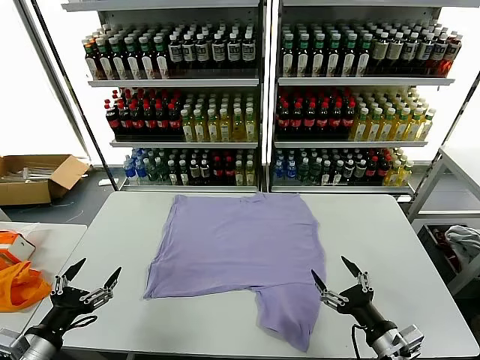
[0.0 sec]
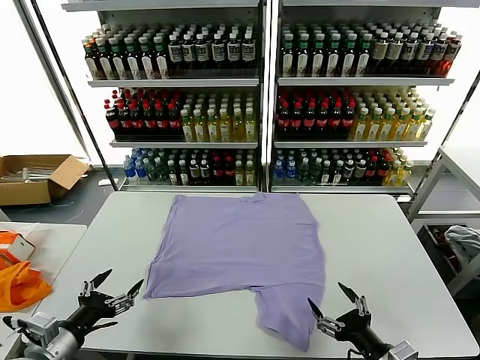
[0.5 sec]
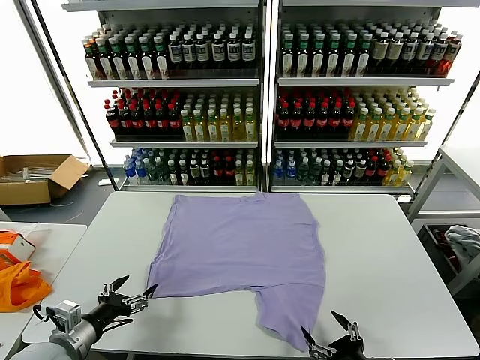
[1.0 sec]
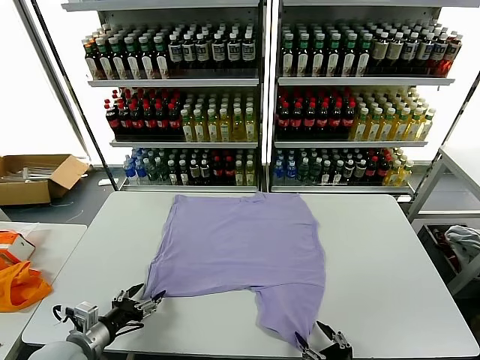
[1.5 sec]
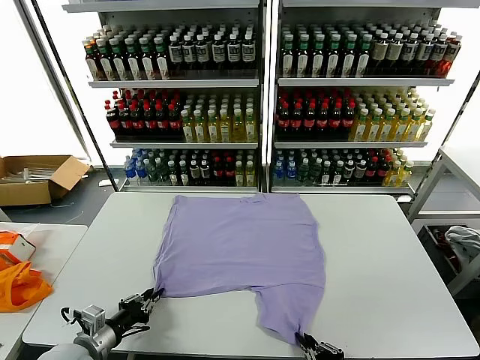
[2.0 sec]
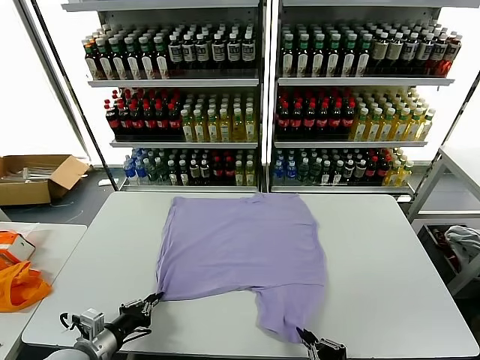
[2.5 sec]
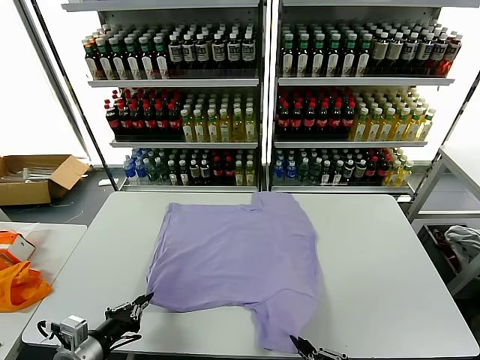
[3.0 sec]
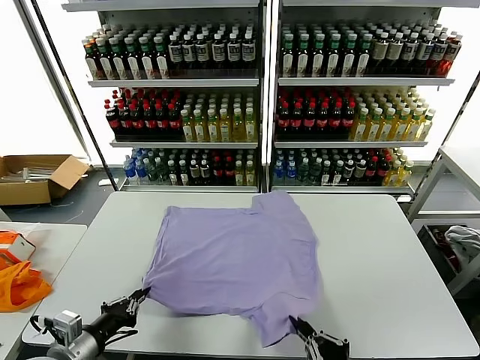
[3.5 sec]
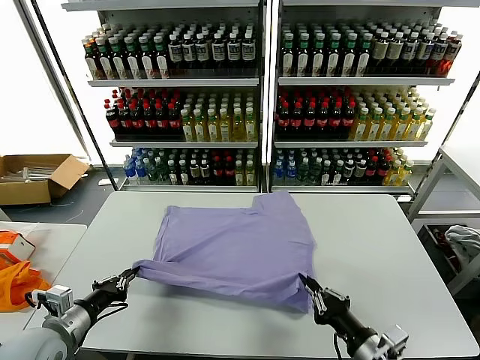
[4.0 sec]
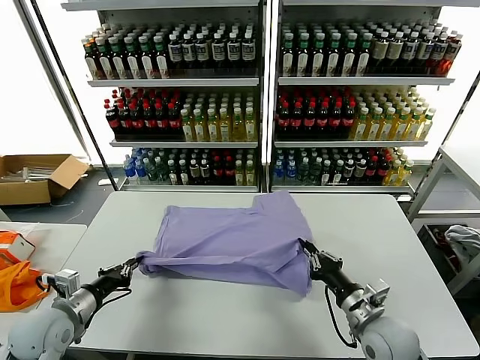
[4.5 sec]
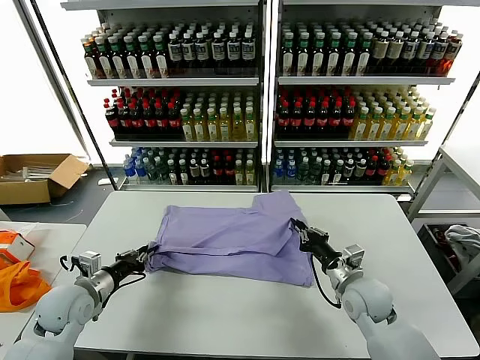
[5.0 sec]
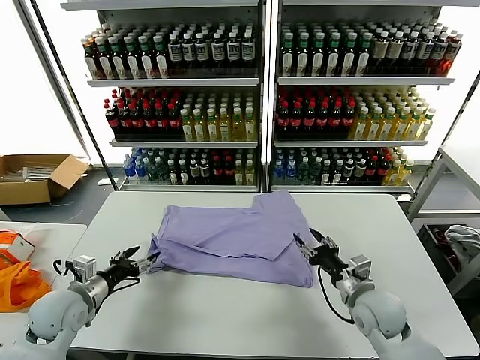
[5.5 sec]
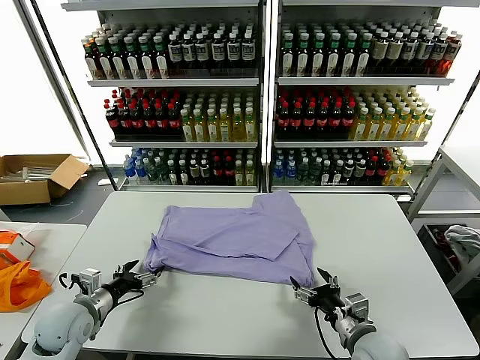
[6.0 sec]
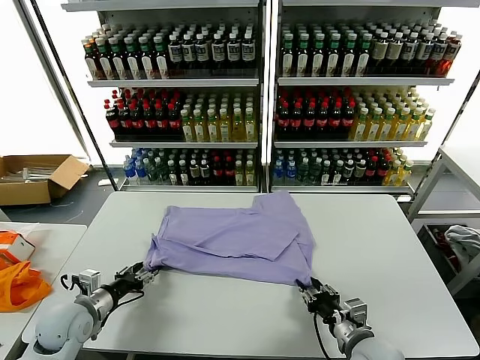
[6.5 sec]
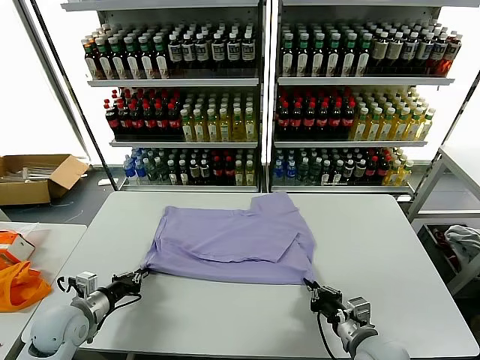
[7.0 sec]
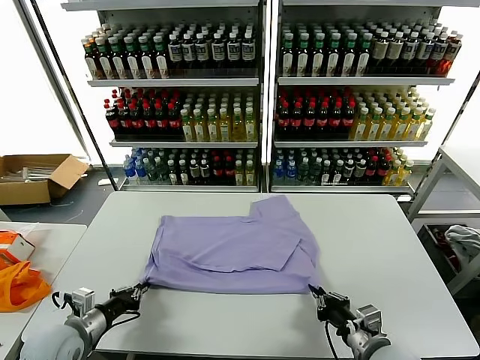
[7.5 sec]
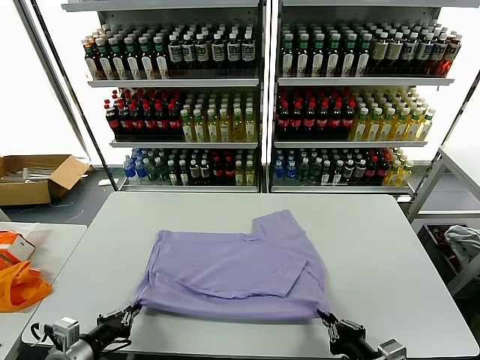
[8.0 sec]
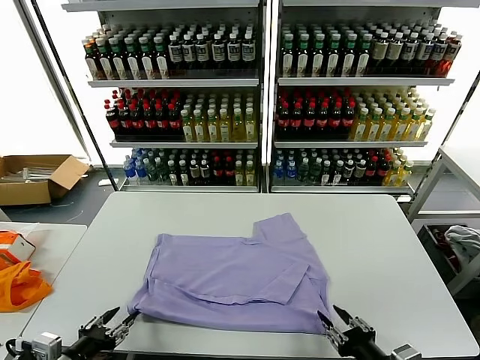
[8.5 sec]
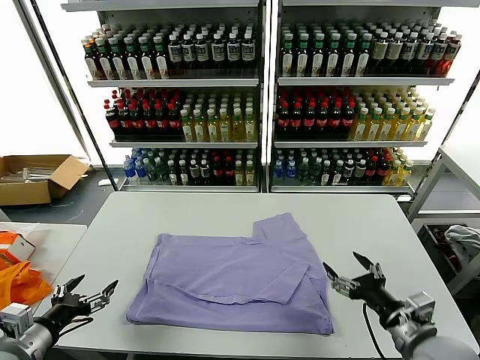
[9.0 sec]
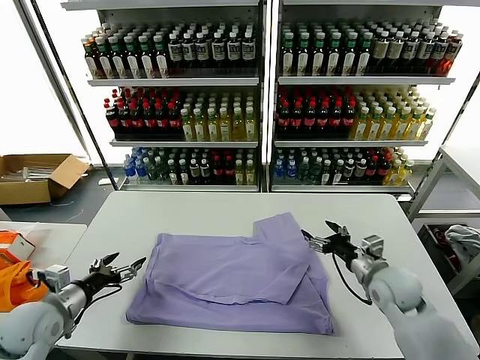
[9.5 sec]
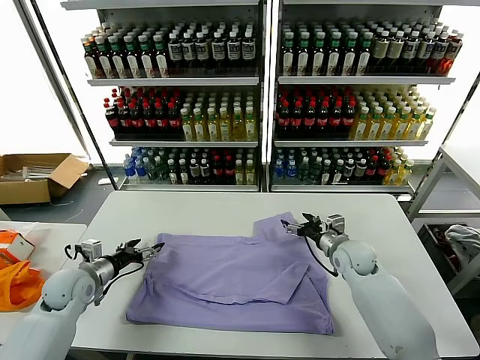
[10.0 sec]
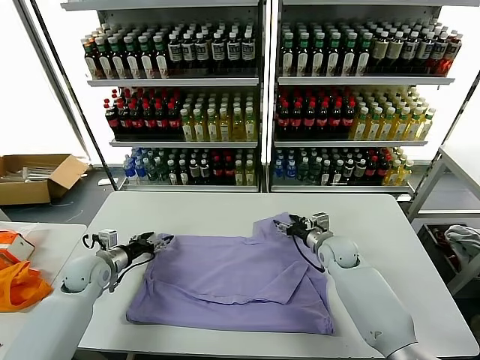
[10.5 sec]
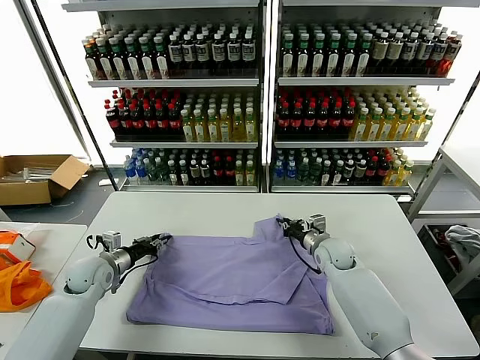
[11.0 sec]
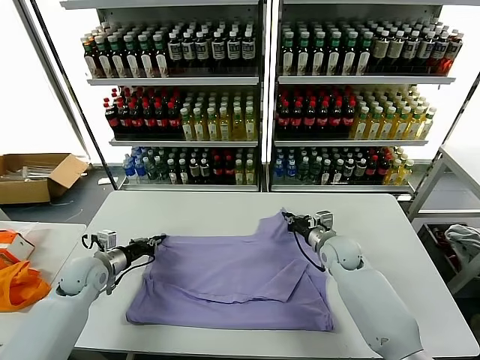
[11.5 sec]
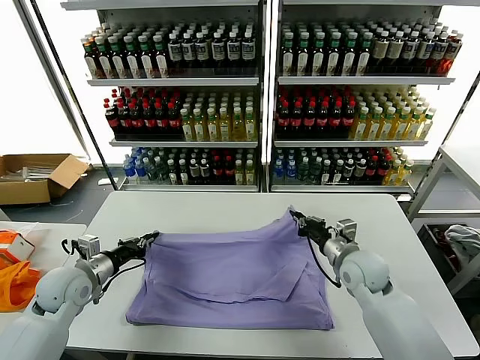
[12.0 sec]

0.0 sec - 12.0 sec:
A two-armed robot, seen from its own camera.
Task of the whole recording: fold and organize the clothes.
Step, 0.0 sec - 2.0 sec: use both grippers simultaneously to clamp the lower edge of the clothing fabric.
Step, 2.5 sec - 5.0 sec: use both grippers to drag the lower edge of the fabric forward and fold it over the upper edge.
Step, 5.5 sec - 8.0 sec: Drag the clothes downward with both gripper.
Step, 8.5 sec - 11.0 sec: use both grippers simultaneously to clamp the upper edge of the clothing fabric.
2.0 sec - 4.0 sec: The right gripper shifts approximately 10 cm forward. Meanwhile the left gripper moves upward, about 5 cm.
4.0 sec - 6.0 sec: The left gripper moves forward, some 5 cm, and opens up; the right gripper travels forward and back again, about 15 cm each way, and opens its fingers.
6.0 sec - 8.0 sec: The grippers both shift backward by approximately 10 cm. The right gripper closes, while the left gripper closes.
8.0 sec - 10.0 sec: The right gripper is displaced forward by approximately 35 cm, and opens its fingers, while the left gripper heads forward, covering roughly 20 cm, and opens its fingers.
10.0 sec - 12.0 sec: The right gripper moves backward and upward, some 10 cm, and closes. The left gripper moves about 5 cm, and closes up.

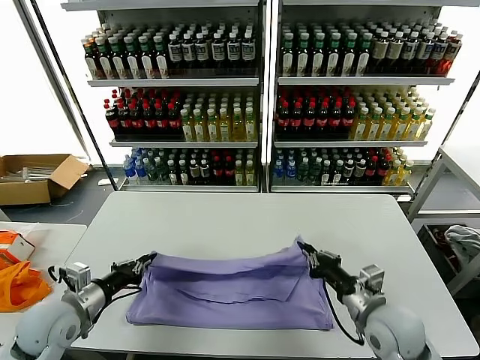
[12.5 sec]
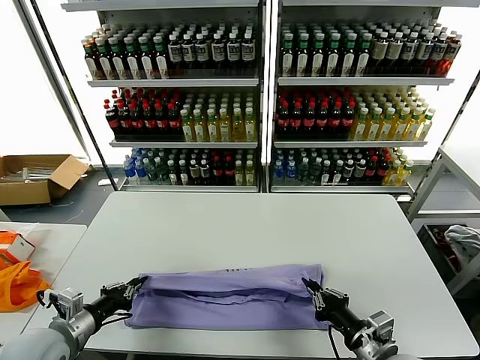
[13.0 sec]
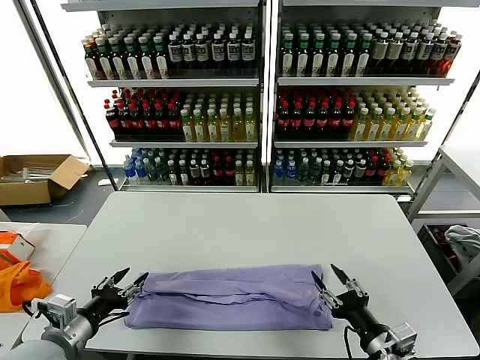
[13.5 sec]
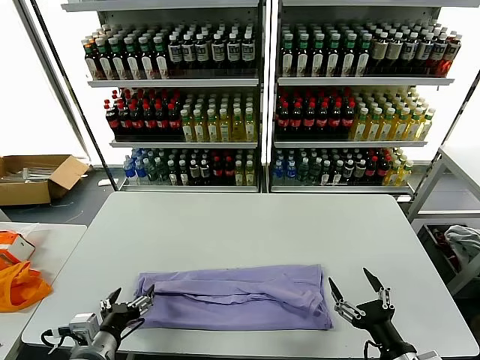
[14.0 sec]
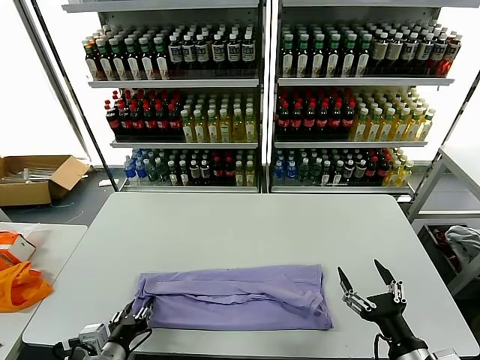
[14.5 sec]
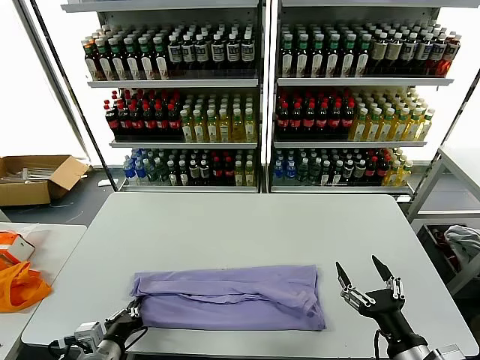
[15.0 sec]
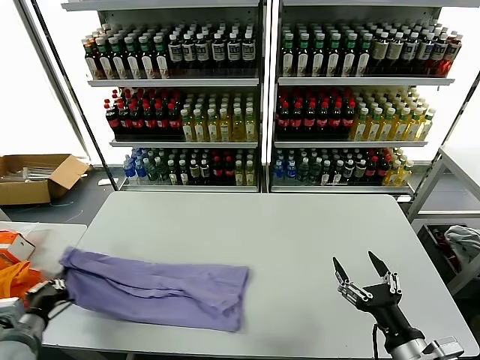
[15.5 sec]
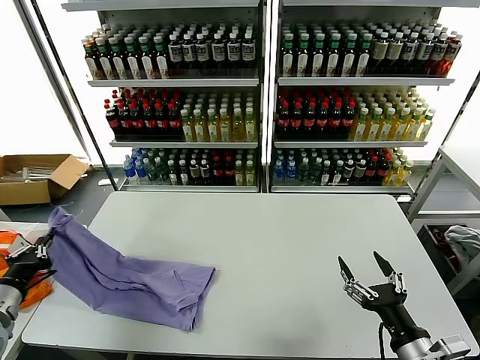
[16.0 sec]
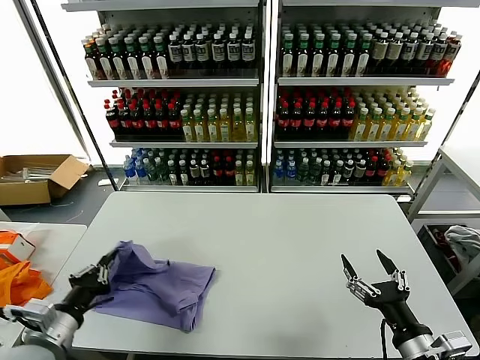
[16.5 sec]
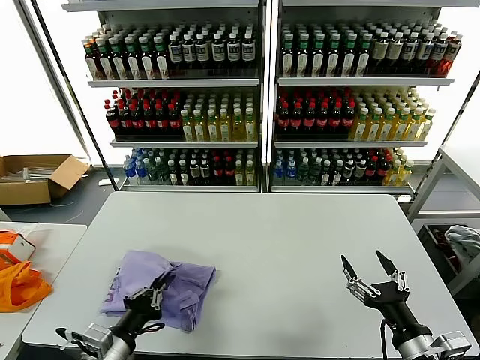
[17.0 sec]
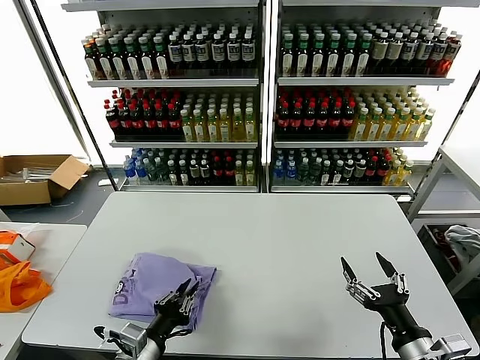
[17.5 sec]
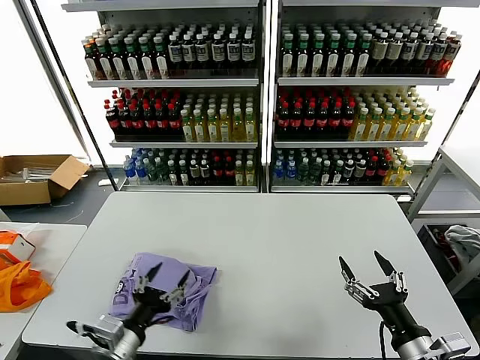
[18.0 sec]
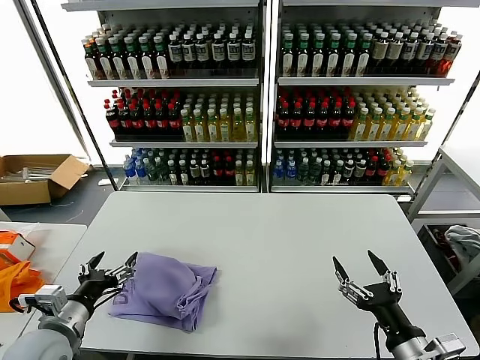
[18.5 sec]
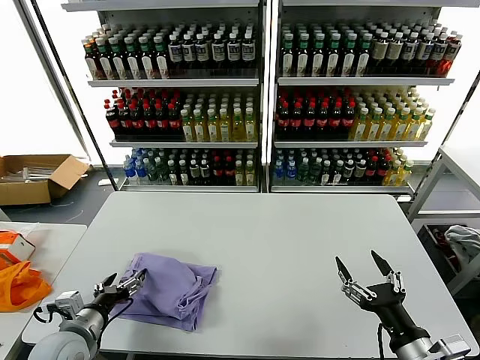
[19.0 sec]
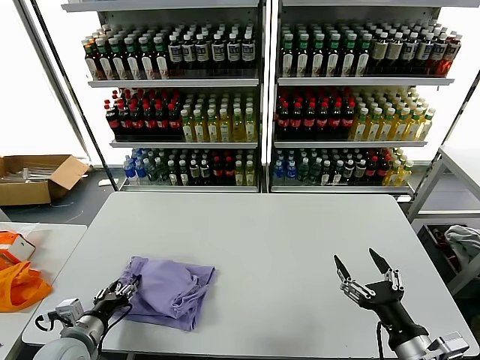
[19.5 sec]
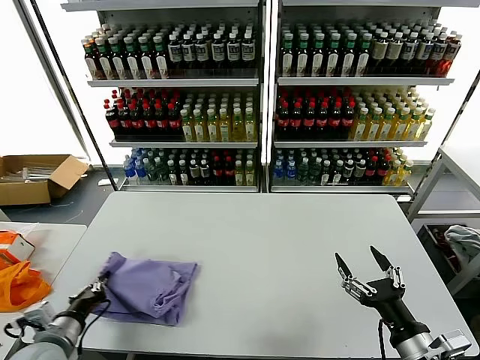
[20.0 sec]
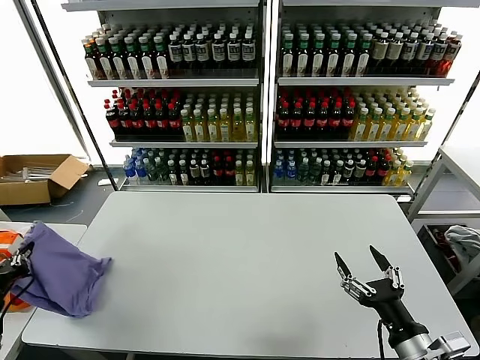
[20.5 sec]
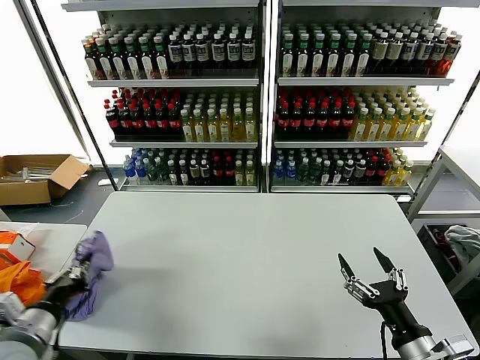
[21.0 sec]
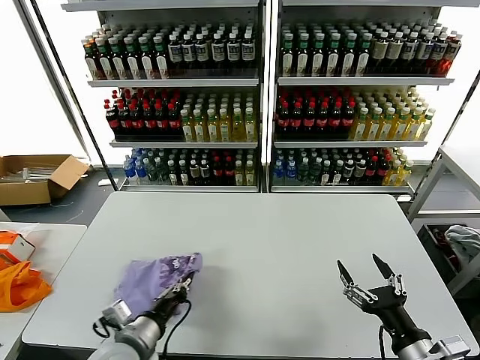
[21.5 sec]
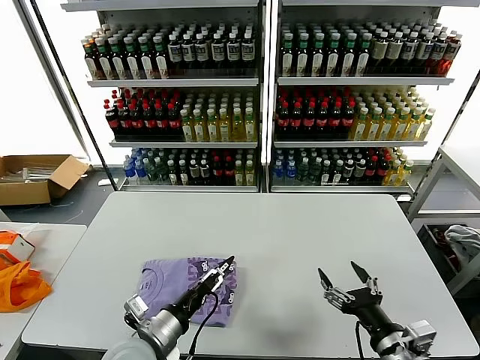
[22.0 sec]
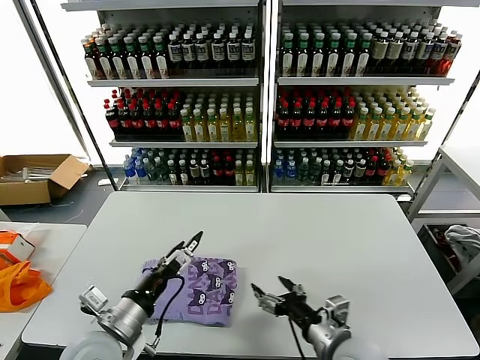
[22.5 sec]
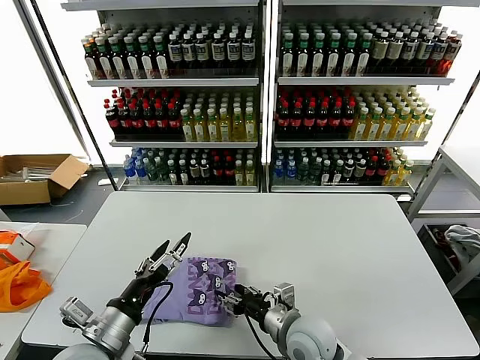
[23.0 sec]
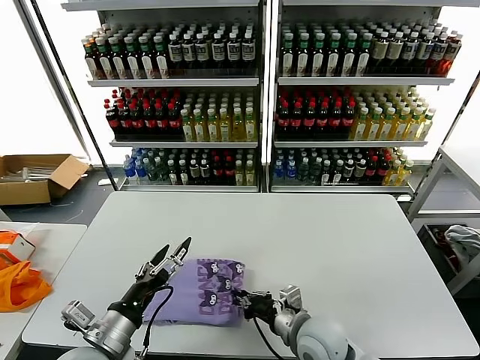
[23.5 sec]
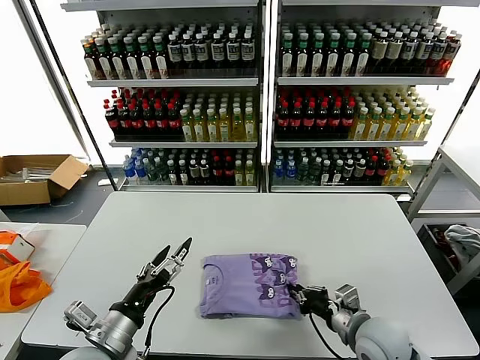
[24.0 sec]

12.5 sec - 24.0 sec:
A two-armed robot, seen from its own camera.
Task of the whole recording: fold and organize the clothes.
Step, 13.5 sec - 14.5 sec: use the left gripper to clamp the left edge of the fabric.
Step, 15.0 sec - 17.5 sec: use the left gripper to drag the left edge of the fabric to the left and folds it over the right edge.
Step, 18.0 sec - 21.5 sec: Flip the folded clothes over with left gripper.
12.5 sec - 14.5 sec: The right gripper moves backward, roughly 10 cm, and opens. Meanwhile the left gripper shifts approximately 15 cm backward, to the right and downward, and opens.
14.5 sec - 16.5 sec: The left gripper goes about 10 cm to the left and upward, and closes.
16.5 sec - 18.5 sec: The left gripper reaches approximately 15 cm to the right, then returns, and opens up.
18.5 sec - 20.0 sec: The left gripper travels downward by some 5 cm, and closes up.
20.0 sec - 22.0 sec: The left gripper is displaced to the right by approximately 20 cm, and opens its fingers.
22.0 sec - 24.0 sec: The right gripper goes approximately 10 cm forward and downward, reaches about 15 cm to the left, then returns, and closes; the left gripper travels to the left by some 5 cm, and opens.

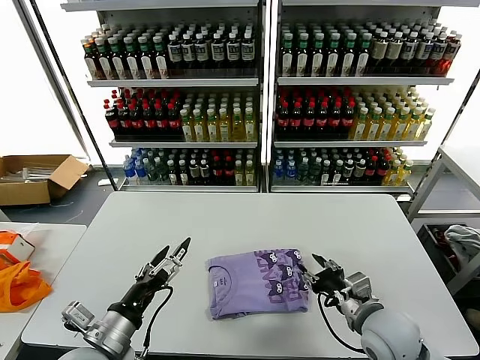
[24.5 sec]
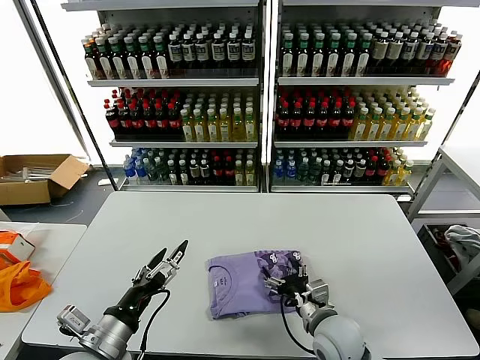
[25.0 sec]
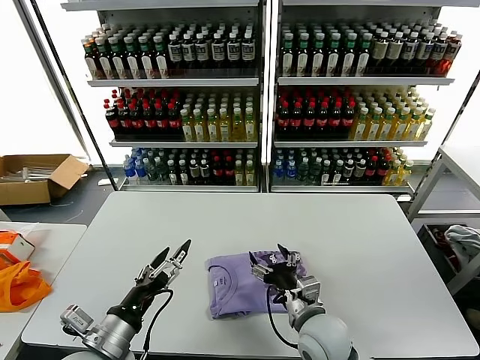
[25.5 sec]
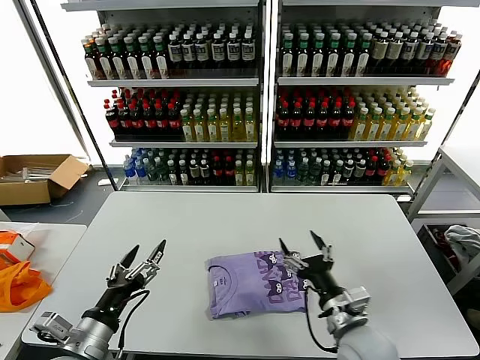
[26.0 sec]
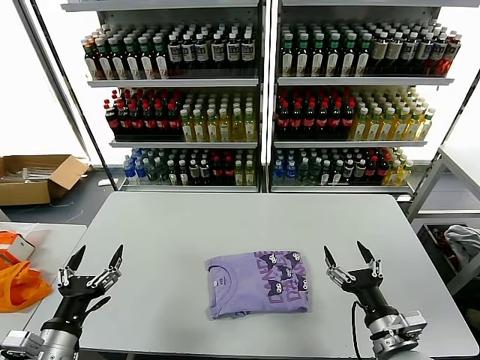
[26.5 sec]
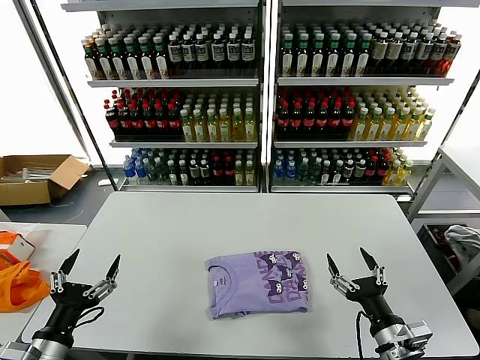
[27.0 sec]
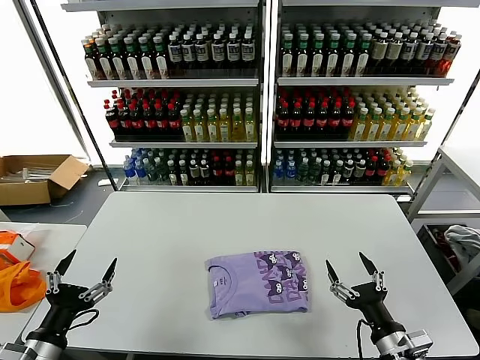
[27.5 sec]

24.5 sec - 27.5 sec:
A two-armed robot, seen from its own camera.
Task of the whole recording: fold and organize the clothes.
24.5 sec - 26.0 sec: The right gripper shifts roughly 5 cm to the left, and opens its fingers.
26.0 sec - 27.5 sec: The left gripper travels to the left by roughly 10 cm. The right gripper travels to the right and backward by roughly 10 cm.
